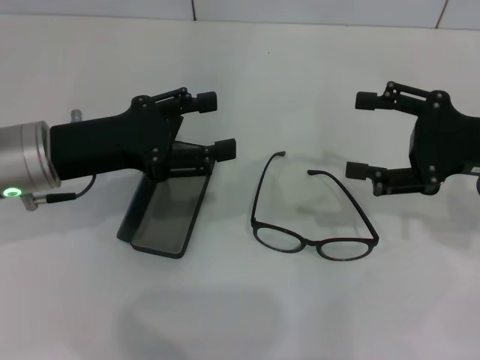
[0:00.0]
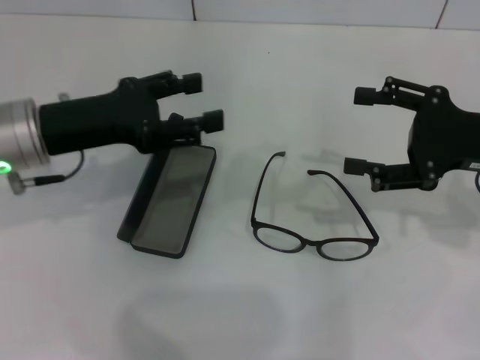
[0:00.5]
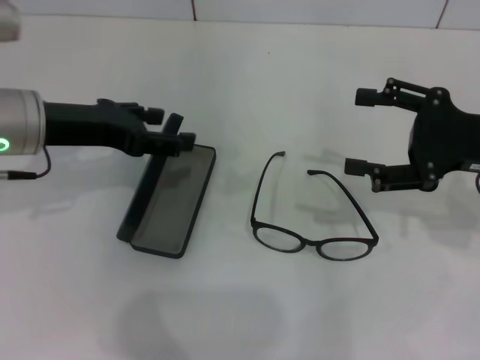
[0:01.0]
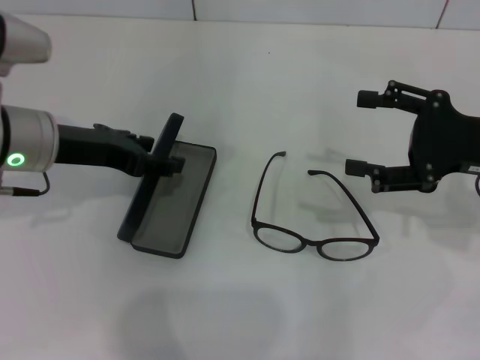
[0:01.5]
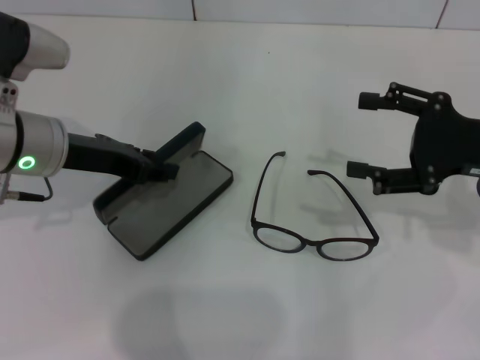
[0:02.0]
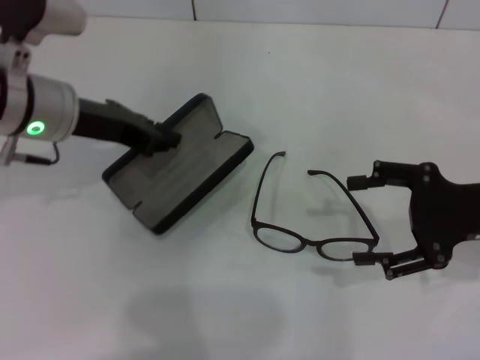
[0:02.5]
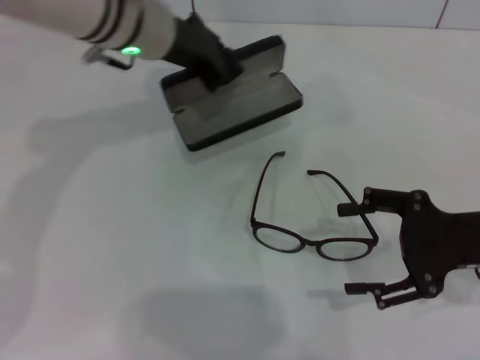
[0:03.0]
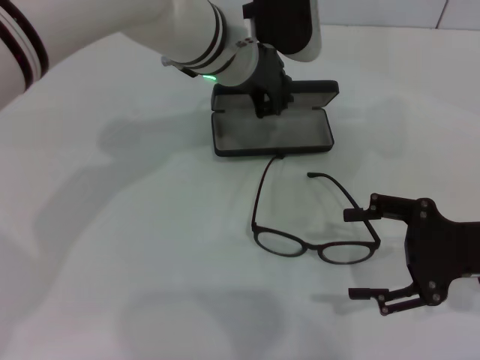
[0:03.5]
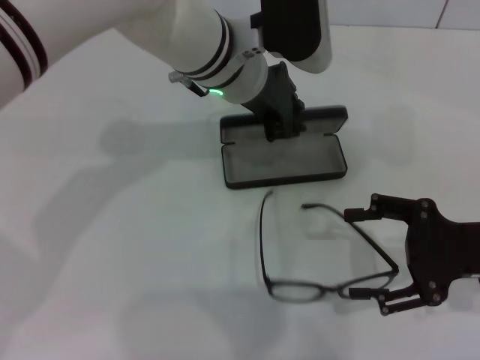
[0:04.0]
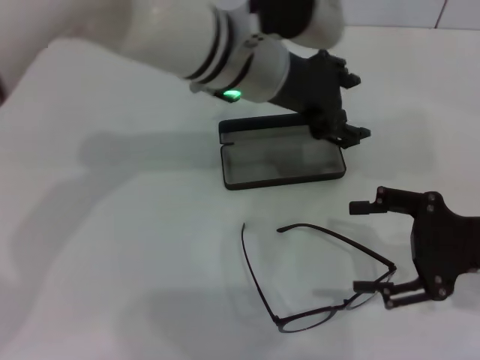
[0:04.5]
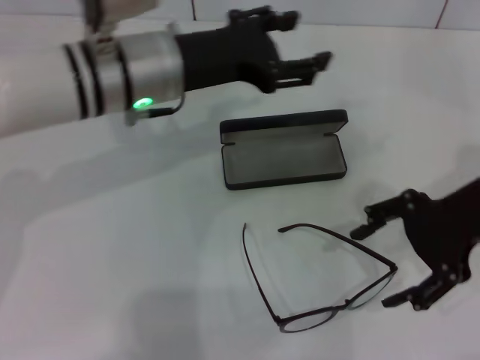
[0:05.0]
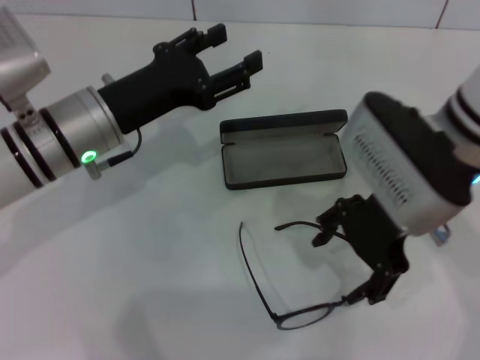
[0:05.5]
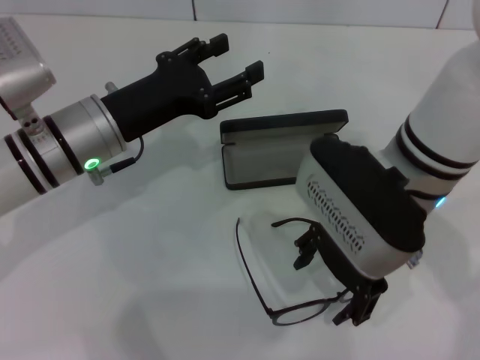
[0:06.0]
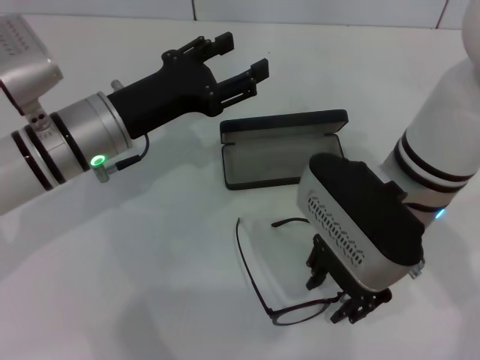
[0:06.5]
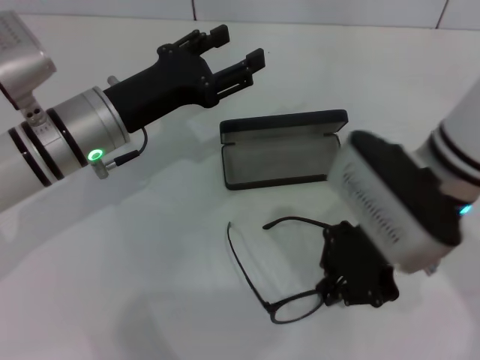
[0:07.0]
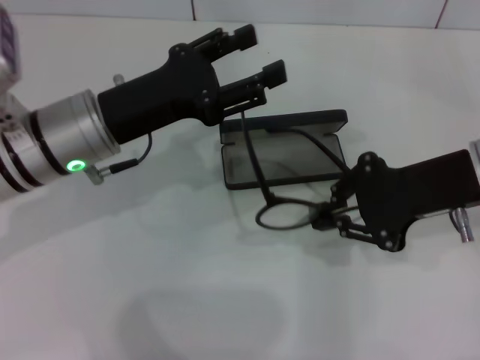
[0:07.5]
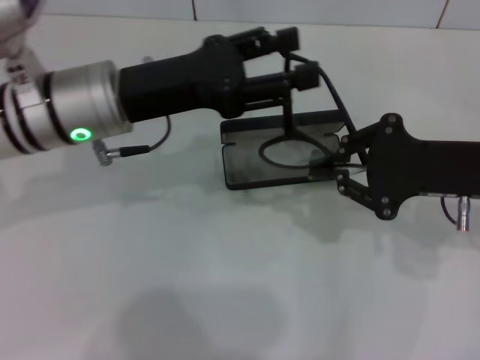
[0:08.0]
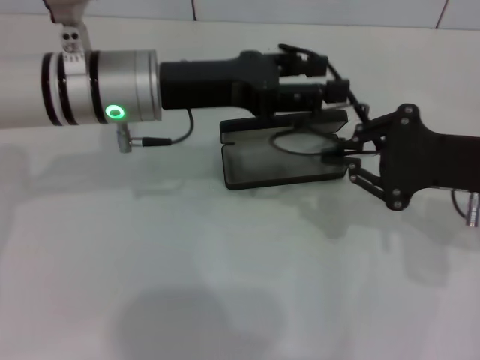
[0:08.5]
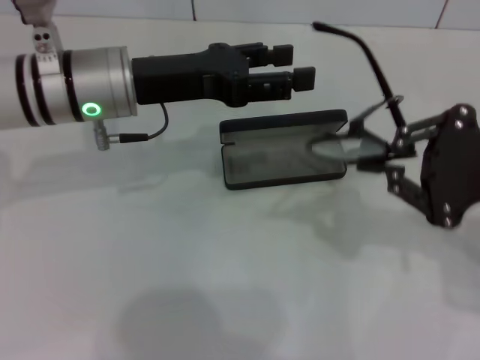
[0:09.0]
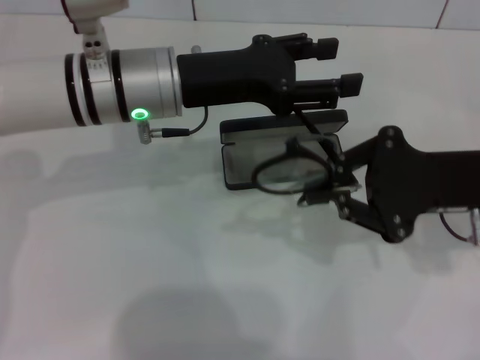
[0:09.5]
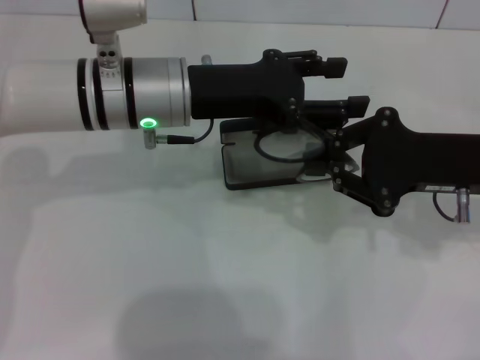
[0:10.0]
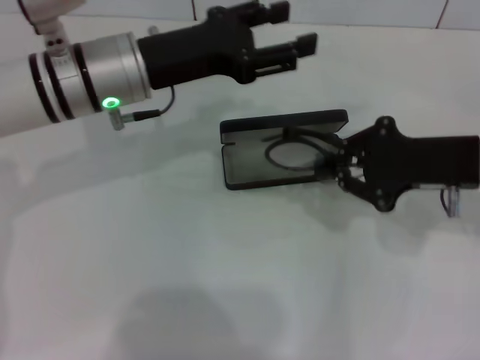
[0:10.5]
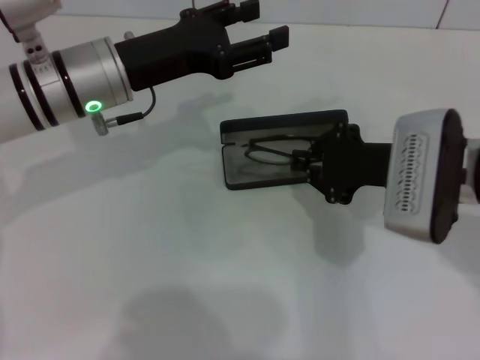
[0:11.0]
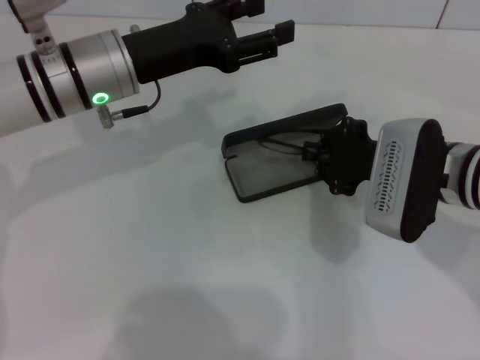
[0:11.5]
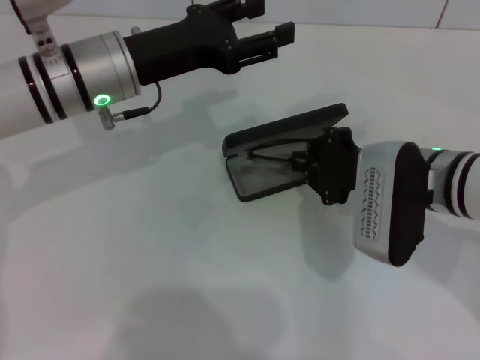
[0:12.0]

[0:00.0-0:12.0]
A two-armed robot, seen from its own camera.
Step, 0.0 to 1.5 s: Grab the glasses case with your left hand.
Step, 2.0 to 4.0 s: Place the glasses case in the center of the table with your left hand.
Step, 4.5 to 6.5 s: Grab the eyeglass frame with your right hand.
Step, 7.0 to 10.0 s: Fold the frame with your left hand.
2.0 to 4.0 s: The left gripper heads to the right, covering approximately 20 cm, and closes its fingers, while the right gripper is displaced backward by approximately 5 cm.
4.0 to 6.0 s: The left gripper shifts some 15 cm to the left, backward and downward, and opens; the right gripper travels to the left and upward by roughly 20 cm.
6.0 to 8.0 s: The left gripper moves approximately 5 cm. The right gripper travels to the right by approximately 15 cm, and closes.
8.0 to 10.0 s: The left gripper moves approximately 5 cm.
10.0 to 12.0 s: The right gripper moves to the left, roughly 5 cm.

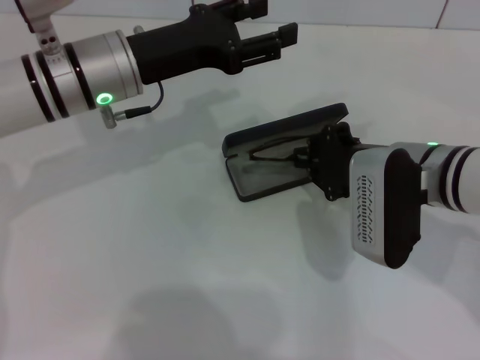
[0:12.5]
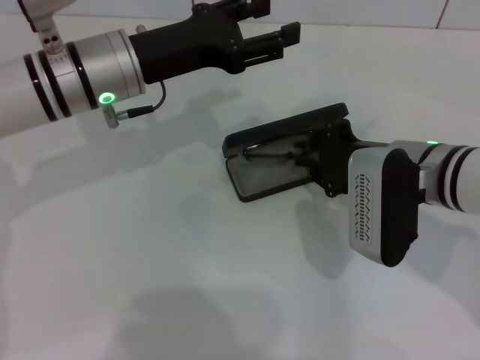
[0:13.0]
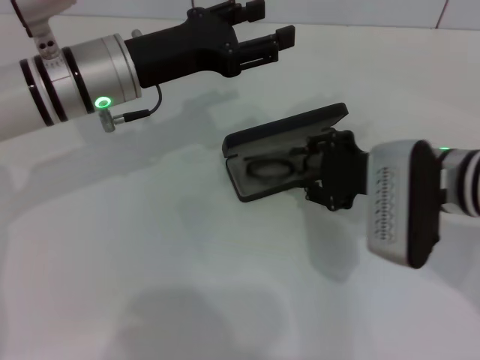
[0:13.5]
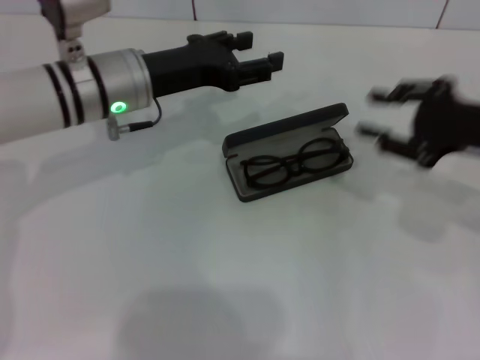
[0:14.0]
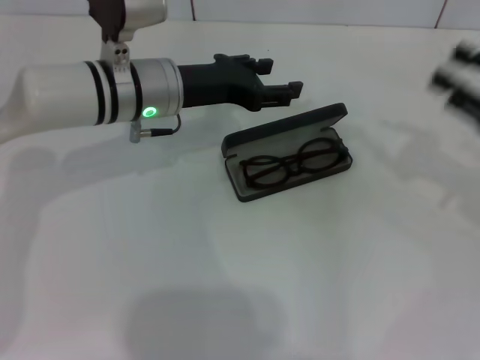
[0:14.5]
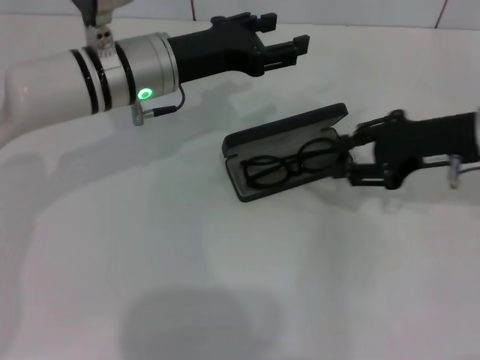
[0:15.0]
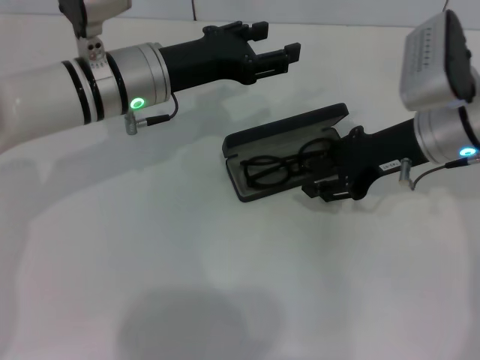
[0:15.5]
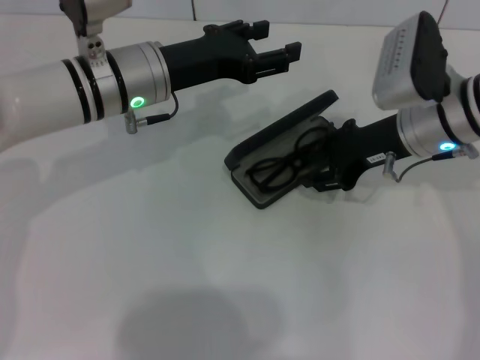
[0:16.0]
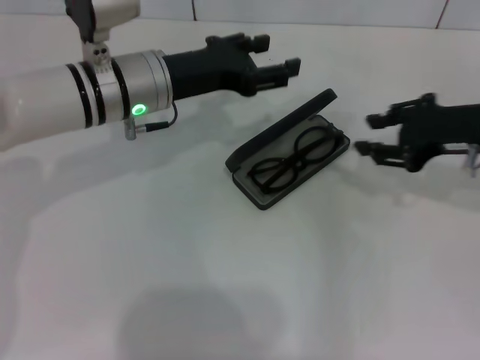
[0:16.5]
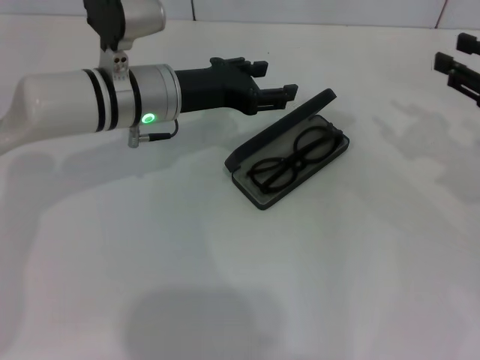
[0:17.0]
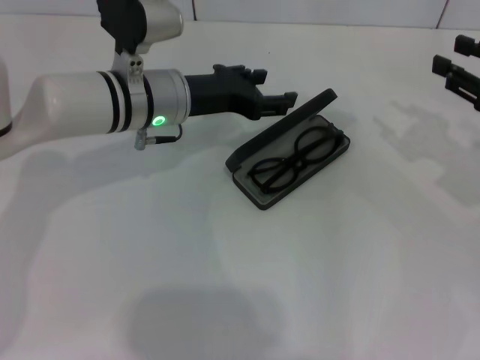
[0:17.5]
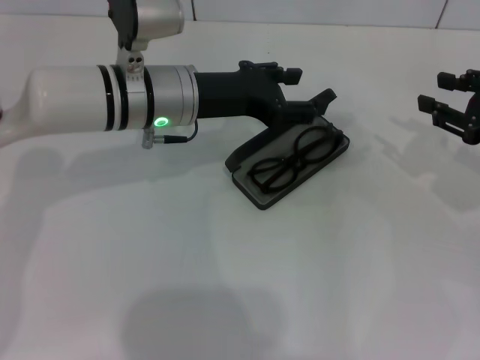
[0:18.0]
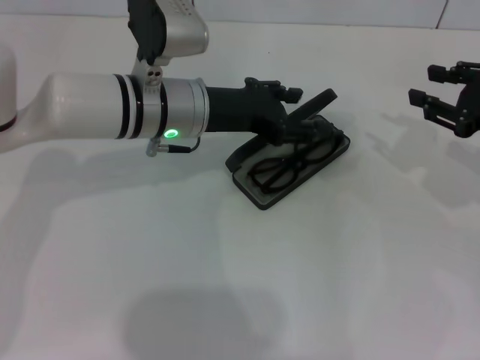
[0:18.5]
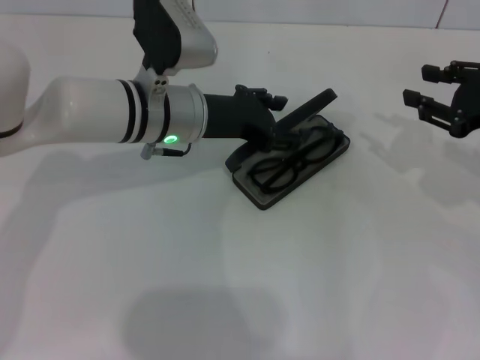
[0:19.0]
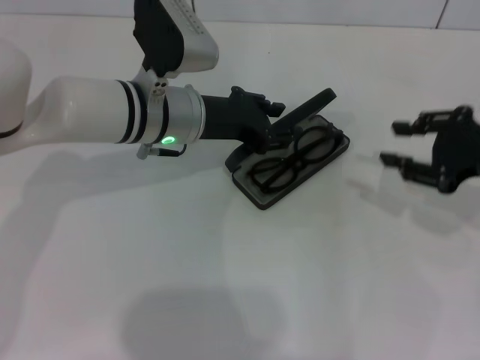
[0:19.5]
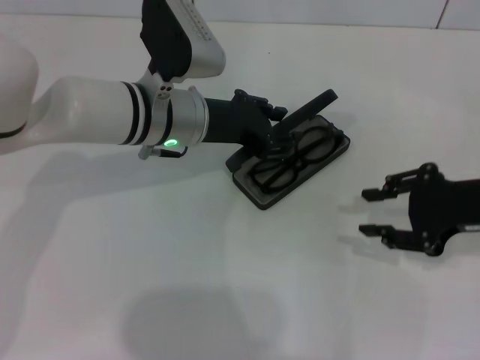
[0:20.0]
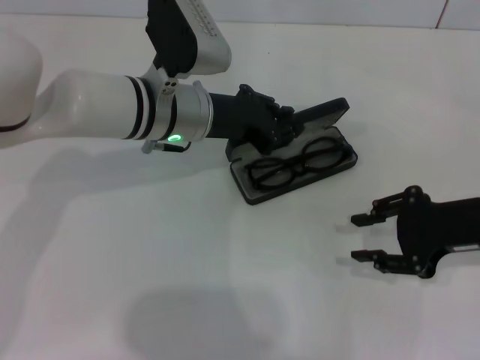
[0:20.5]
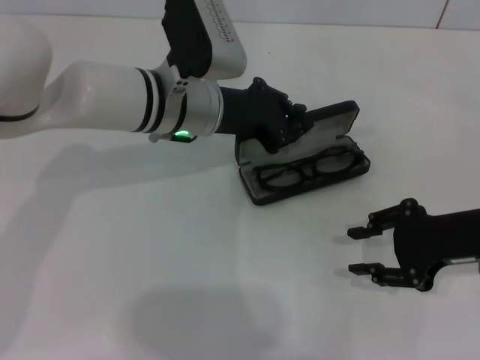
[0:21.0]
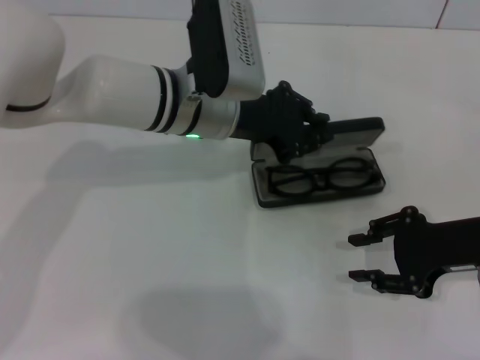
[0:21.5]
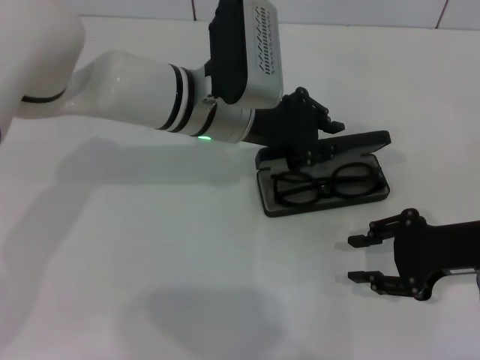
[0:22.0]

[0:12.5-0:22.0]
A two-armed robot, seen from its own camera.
12.5 to 14.5 s: The right gripper travels to the right by some 15 cm, and opens.
14.5 to 16.5 s: The right gripper goes some 10 cm to the left.
16.5 to 18.0 s: The right gripper shifts approximately 5 cm to the right.
18.0 to 20.0 s: The left gripper closes its fingers. Meanwhile the right gripper changes place by about 5 cm.
20.0 to 22.0 s: The left gripper closes up.

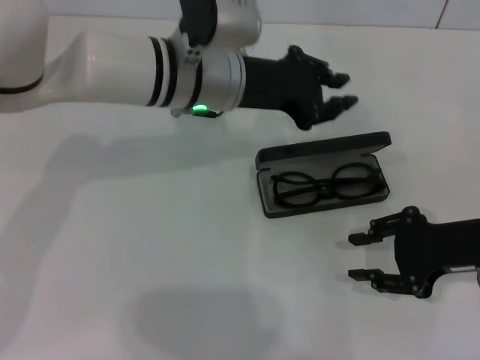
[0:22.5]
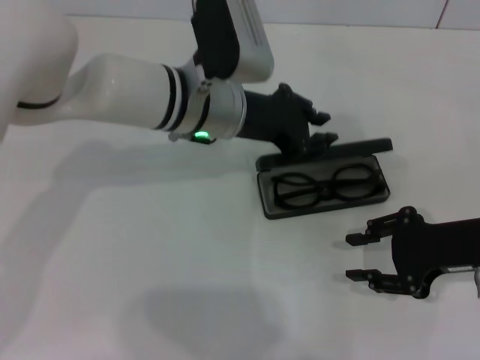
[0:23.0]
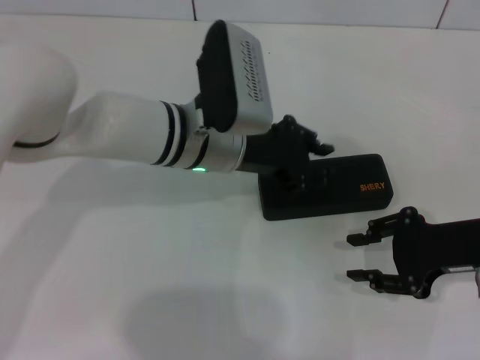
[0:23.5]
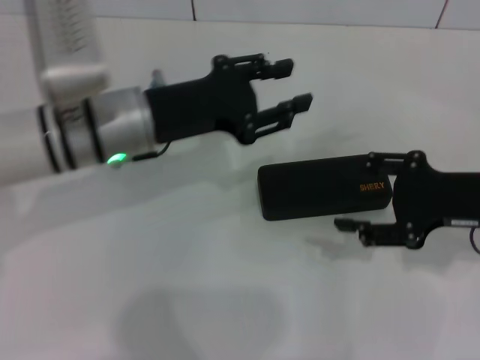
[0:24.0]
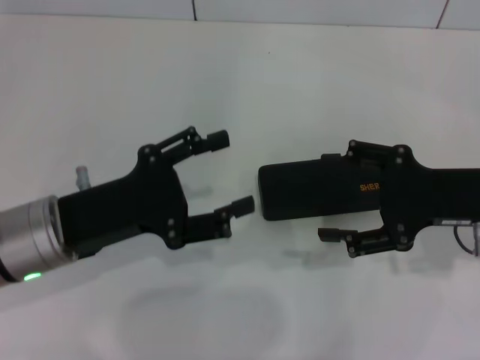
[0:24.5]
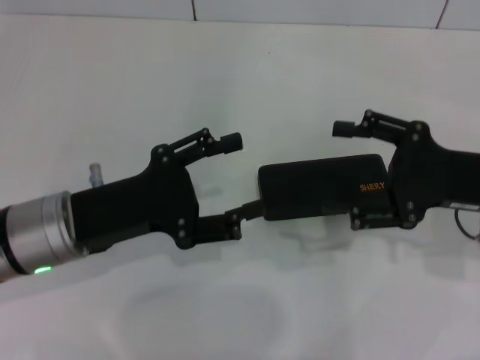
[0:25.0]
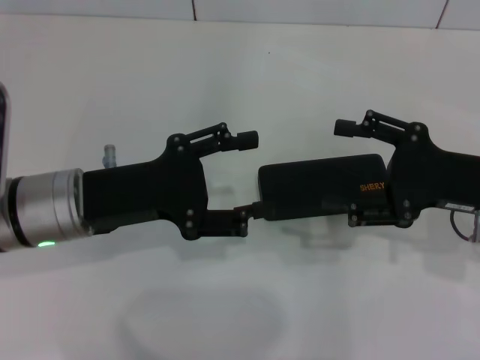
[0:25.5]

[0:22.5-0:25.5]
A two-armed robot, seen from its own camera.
22.5 to 24.0 s: The left gripper goes some 10 cm to the left.
24.0 to 25.5 s: The right gripper opens its fingers; the left gripper heads backward, covering about 5 cm, and opens.

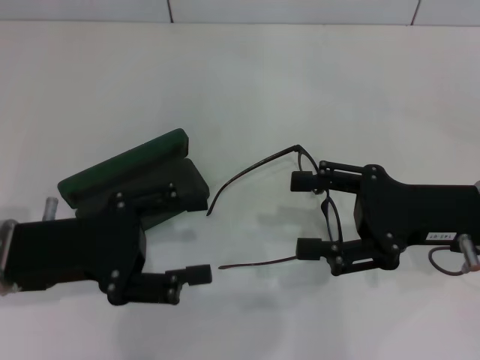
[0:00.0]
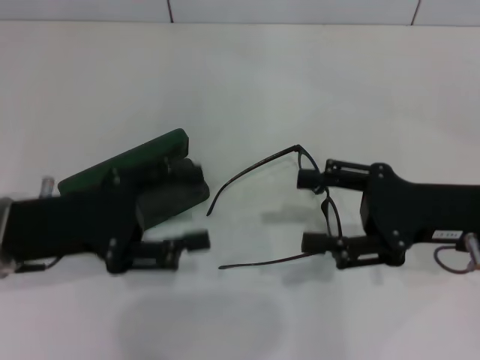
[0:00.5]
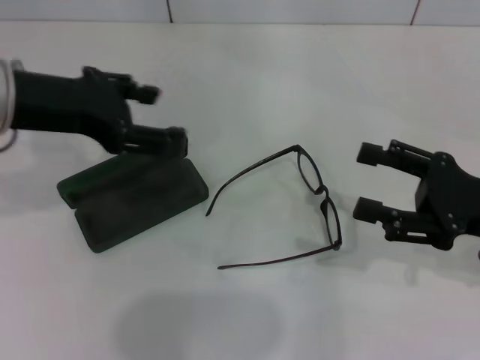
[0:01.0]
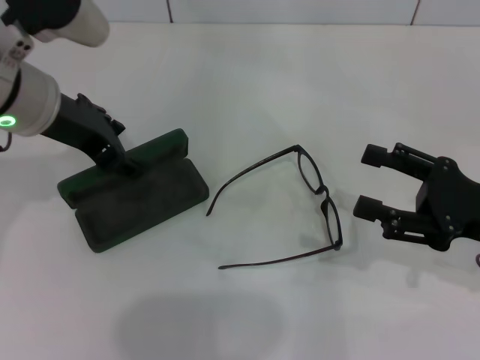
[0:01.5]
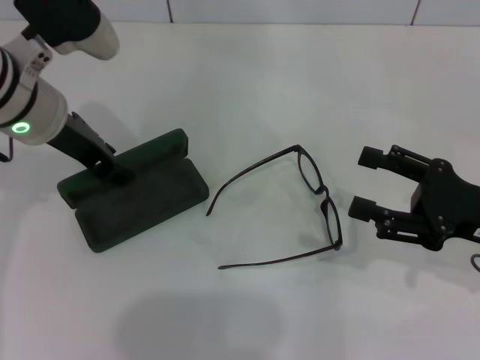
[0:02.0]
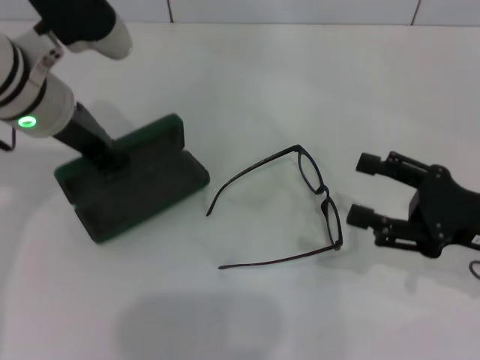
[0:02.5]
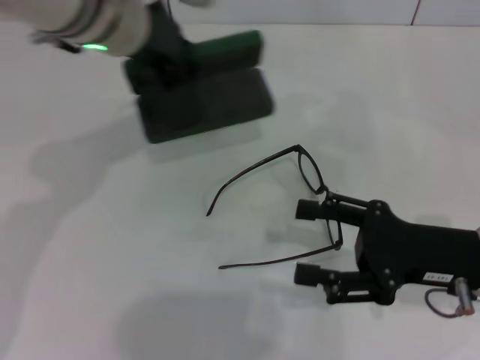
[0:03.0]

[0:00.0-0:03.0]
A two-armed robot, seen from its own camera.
Step, 0.0 to 2.0 s: Grab the glasses case with your left hand.
0.0 to 1.5 s: The left gripper is displaced forward and upward by roughly 15 cm. Meanwhile the right gripper shifts some 5 cm to the right.
1.5 to 3.0 s: The left gripper heads to the right, covering about 10 cm, and closes its fingers.
